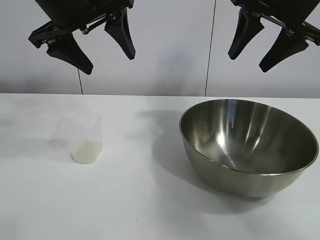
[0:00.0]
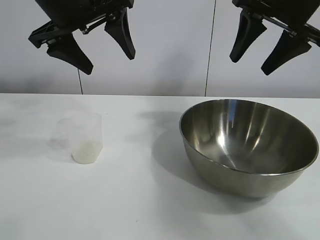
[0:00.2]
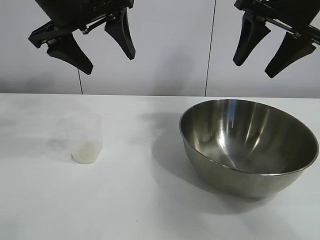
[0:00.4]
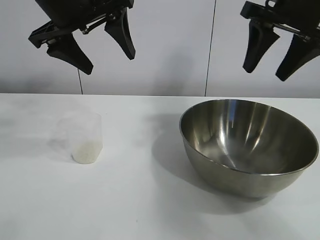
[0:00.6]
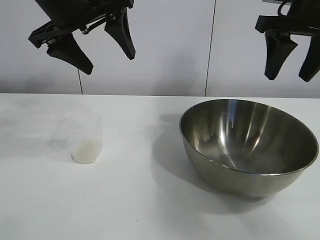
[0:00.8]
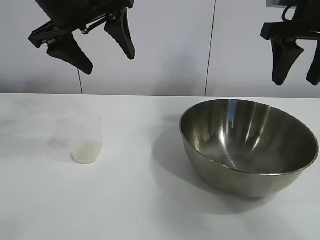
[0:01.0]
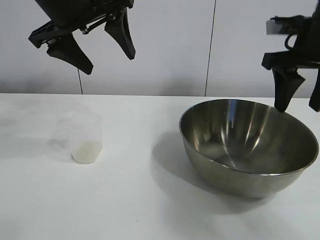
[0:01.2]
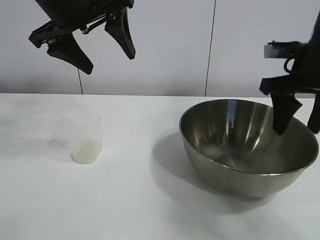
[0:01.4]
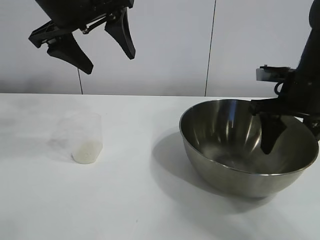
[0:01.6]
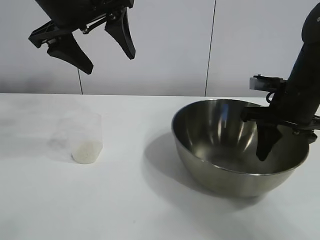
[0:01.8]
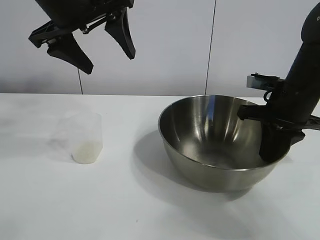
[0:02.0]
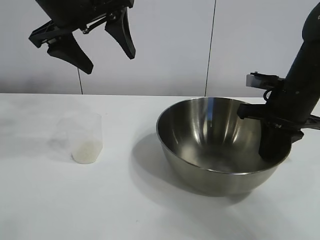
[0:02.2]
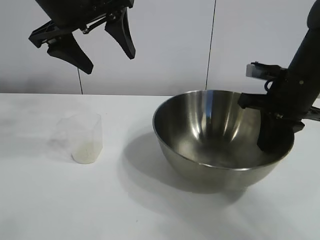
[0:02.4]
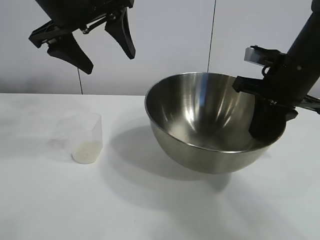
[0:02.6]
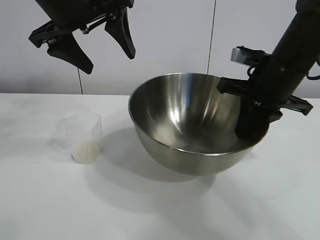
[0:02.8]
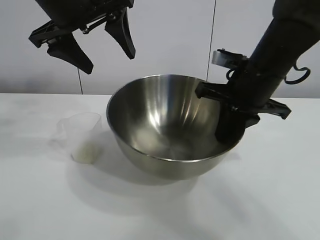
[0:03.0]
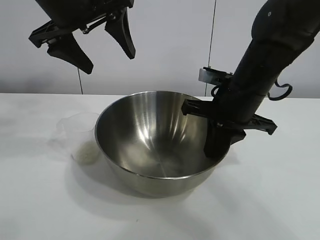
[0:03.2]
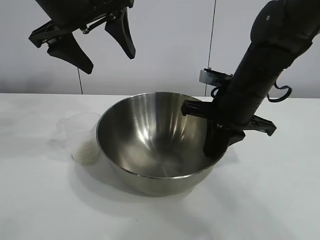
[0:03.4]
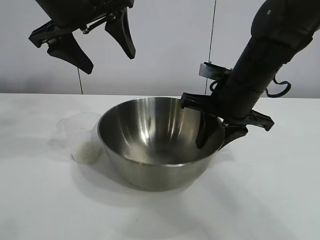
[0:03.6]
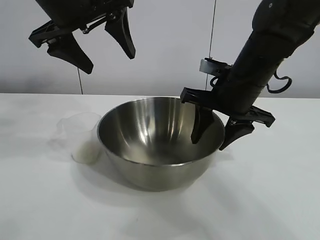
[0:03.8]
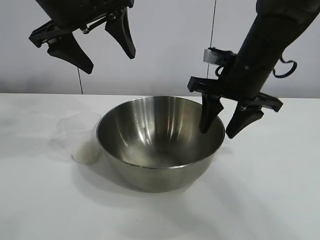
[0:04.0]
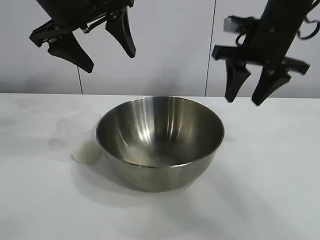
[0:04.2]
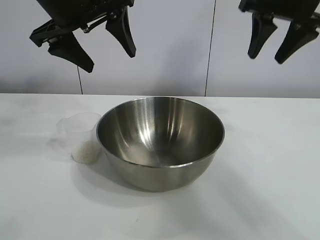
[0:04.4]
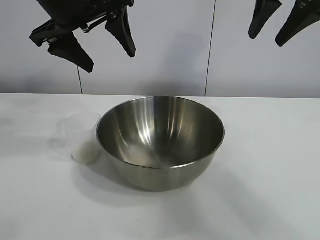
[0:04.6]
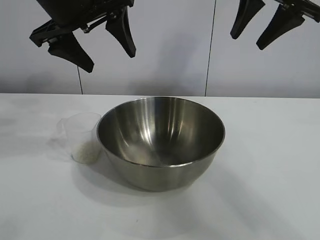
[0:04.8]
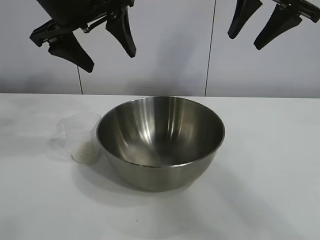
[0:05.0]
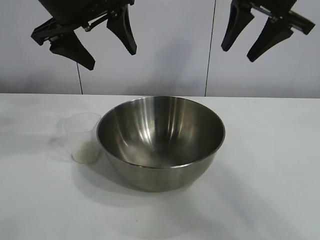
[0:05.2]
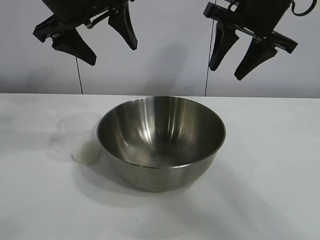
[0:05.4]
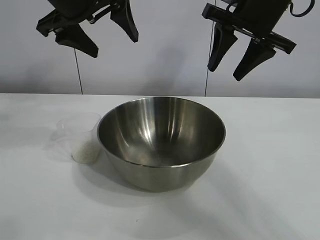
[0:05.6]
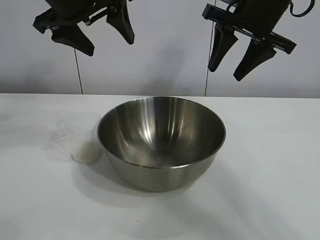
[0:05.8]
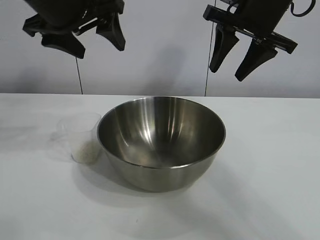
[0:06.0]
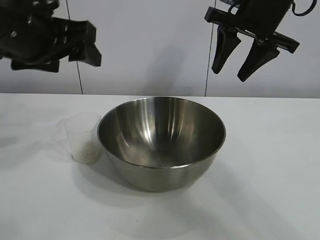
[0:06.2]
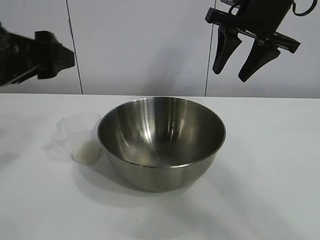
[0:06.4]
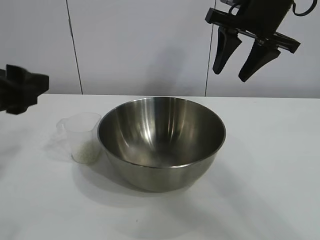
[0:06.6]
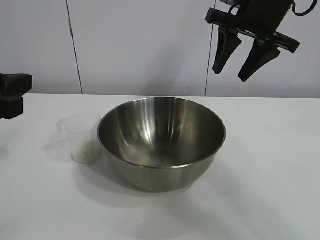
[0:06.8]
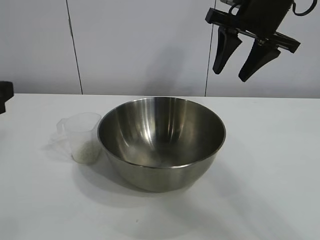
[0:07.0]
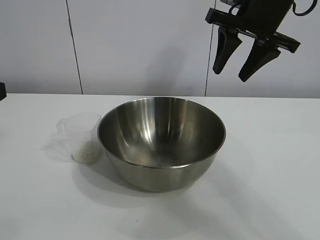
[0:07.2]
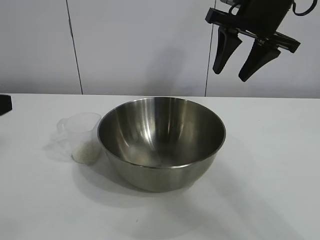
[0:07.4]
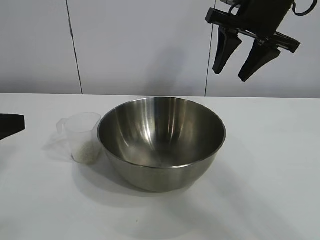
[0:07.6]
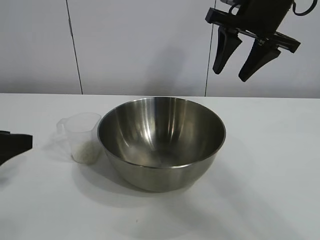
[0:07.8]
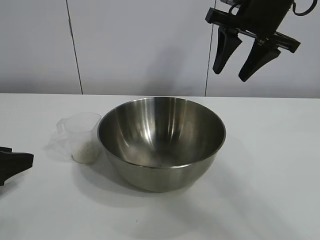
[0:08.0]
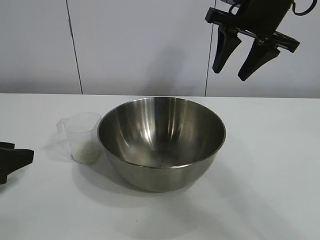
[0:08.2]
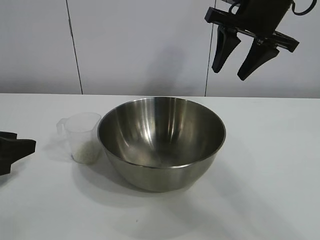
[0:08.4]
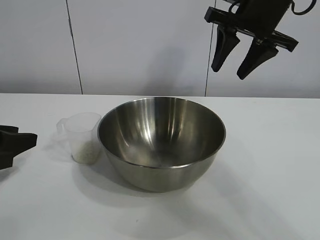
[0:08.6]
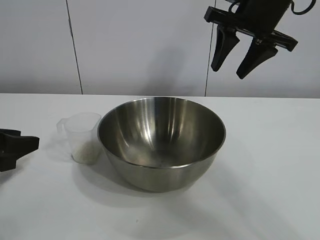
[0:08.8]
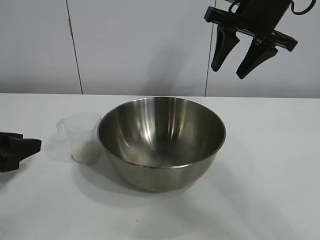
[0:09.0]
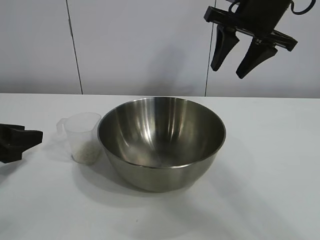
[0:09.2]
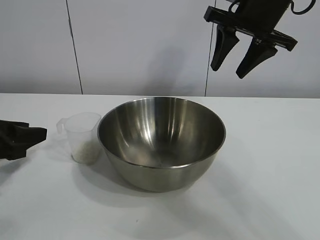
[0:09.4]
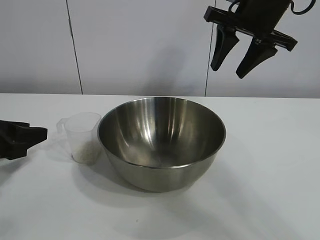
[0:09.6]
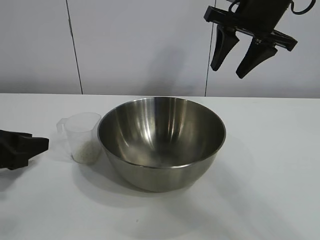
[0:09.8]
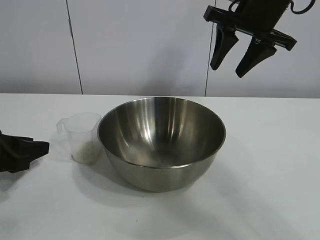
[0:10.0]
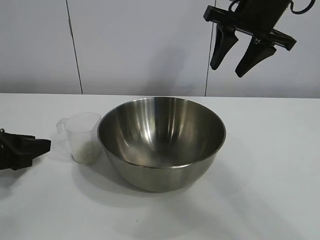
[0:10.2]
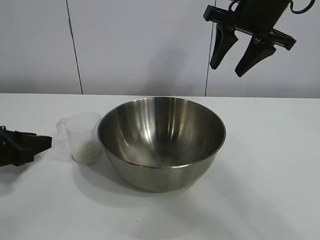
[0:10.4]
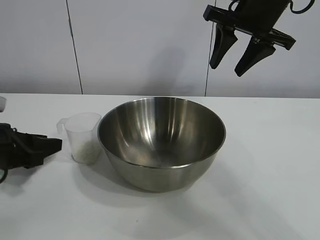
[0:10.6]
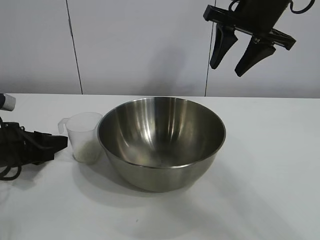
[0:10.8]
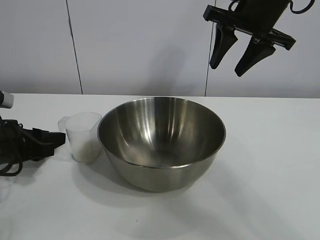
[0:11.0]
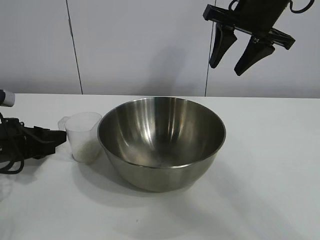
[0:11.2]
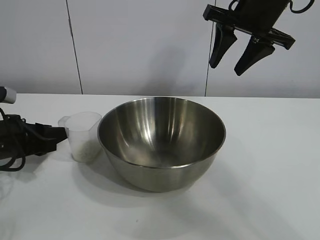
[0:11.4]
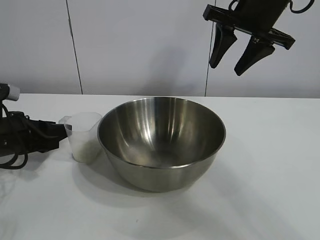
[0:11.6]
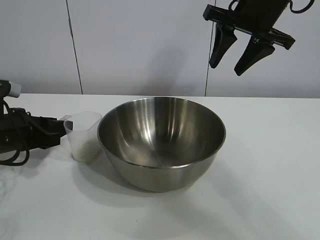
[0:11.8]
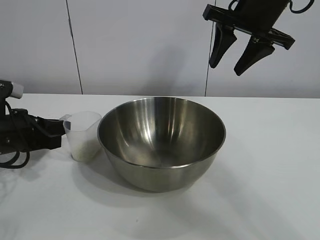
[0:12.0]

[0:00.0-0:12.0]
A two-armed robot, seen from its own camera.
Task of the whole recording: the right gripper grasp the rice container and place it in the center of the table, the left gripper grasp the rice scoop and pour the rice into the rice container.
Step, 0:00.0 to 0:03.8: Move the bowl in the center of view with right gripper.

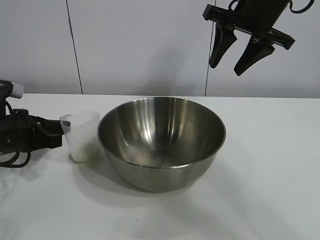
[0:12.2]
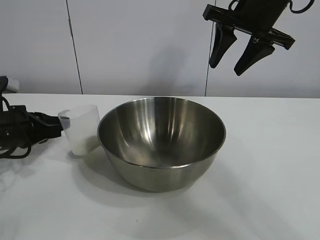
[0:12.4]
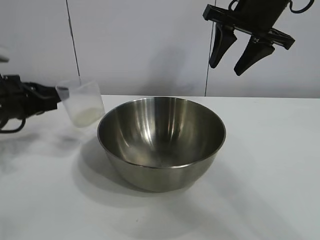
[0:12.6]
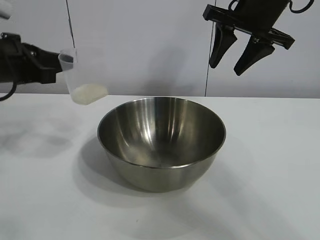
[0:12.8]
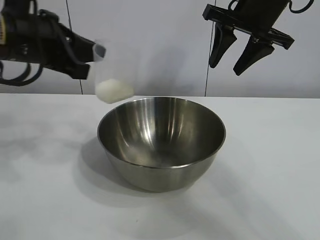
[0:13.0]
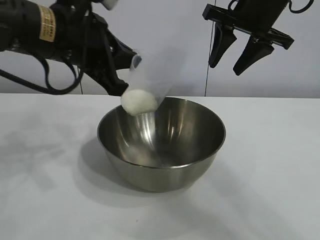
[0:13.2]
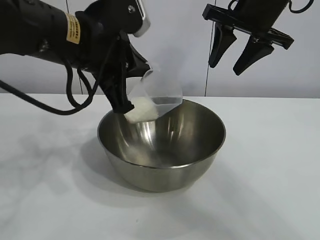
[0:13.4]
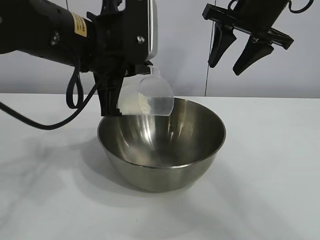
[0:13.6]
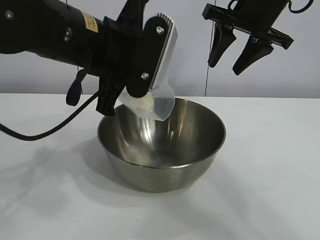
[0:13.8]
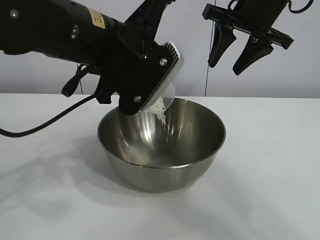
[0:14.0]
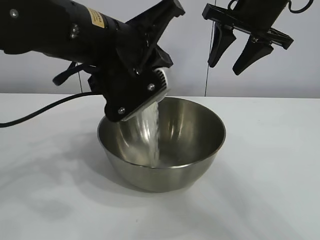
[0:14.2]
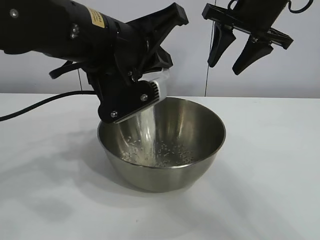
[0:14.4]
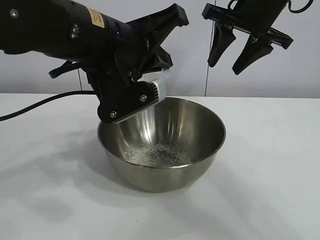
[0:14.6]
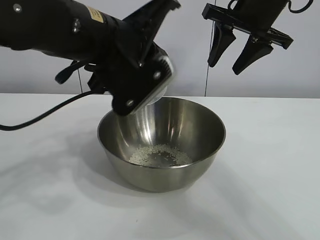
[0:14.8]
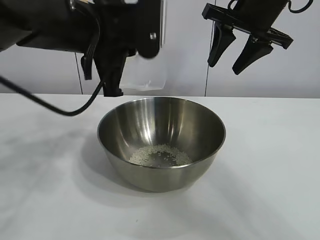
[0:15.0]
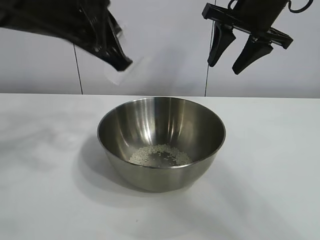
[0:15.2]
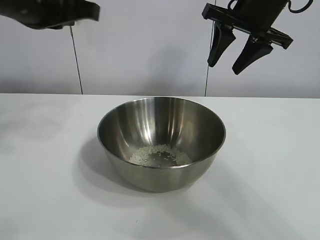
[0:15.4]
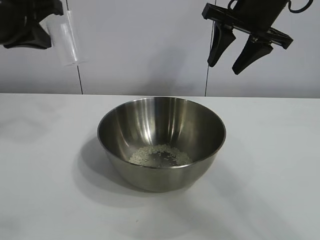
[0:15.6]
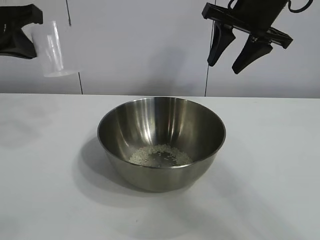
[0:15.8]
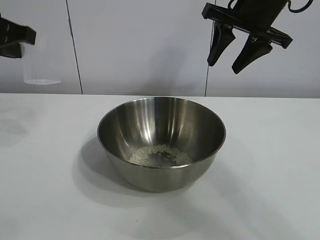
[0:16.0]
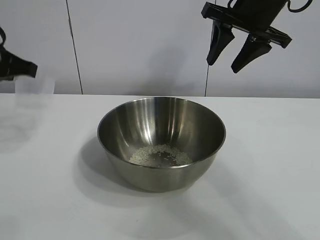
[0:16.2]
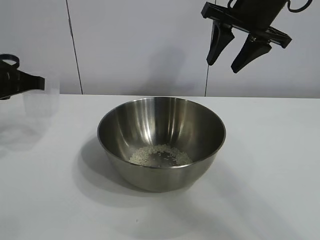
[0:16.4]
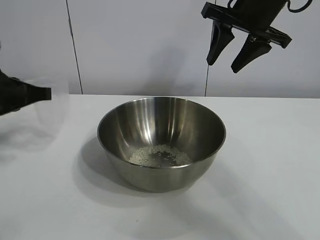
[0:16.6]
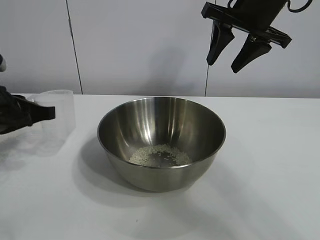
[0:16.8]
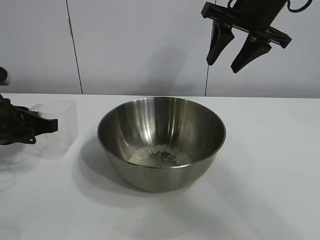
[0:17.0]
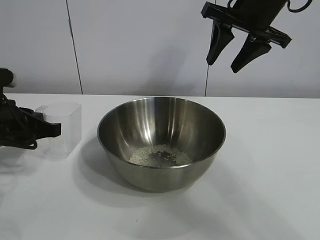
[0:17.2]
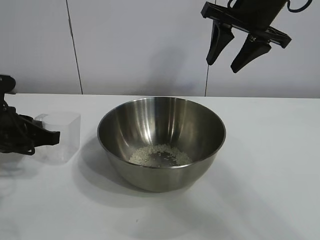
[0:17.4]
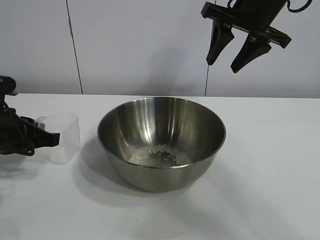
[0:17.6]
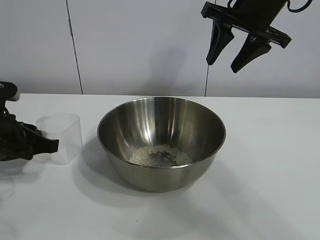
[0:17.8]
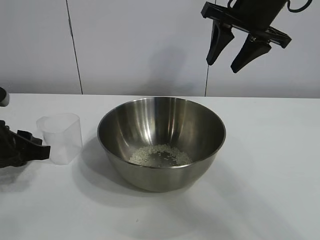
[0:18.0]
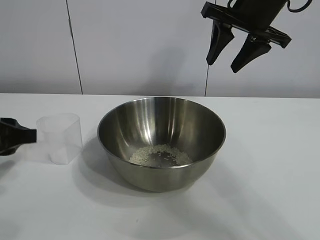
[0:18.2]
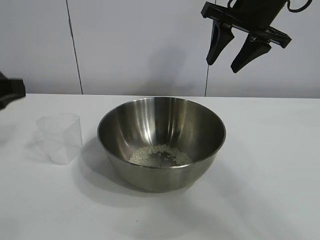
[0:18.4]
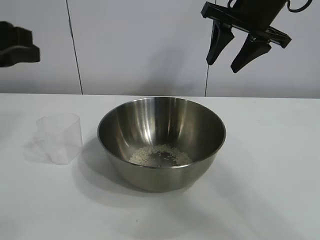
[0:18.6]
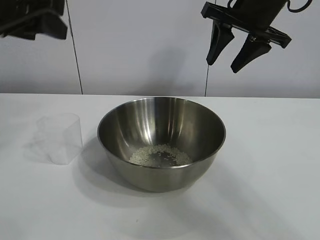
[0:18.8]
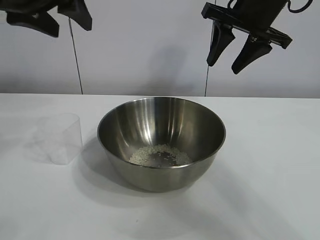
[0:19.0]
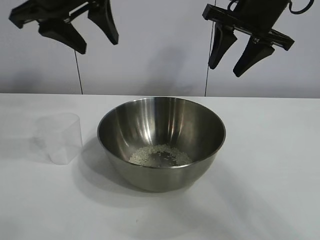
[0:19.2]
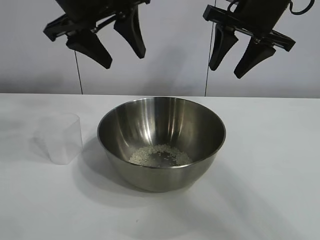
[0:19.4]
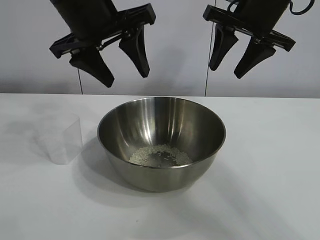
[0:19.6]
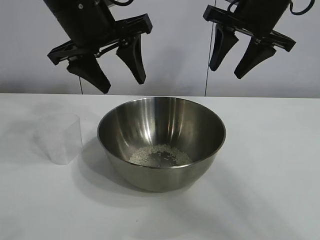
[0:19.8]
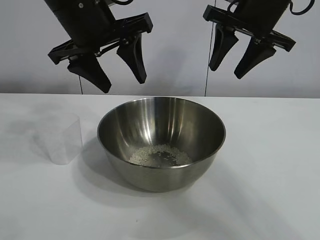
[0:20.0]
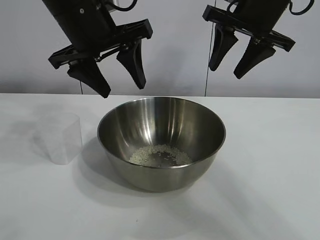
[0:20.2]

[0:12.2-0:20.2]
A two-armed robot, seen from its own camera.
Task of the whole recording: the right gripper grasp the rice container and place it in the center of the table, the left gripper grasp the rice scoop and pour the rice into the rice container.
Step, 0:12.4 to 0:14.6: Pour the rice from the cup into the bowl with the left gripper.
Step, 0:15.0 to 0:17.6: Place the cup on the table with the left gripper.
